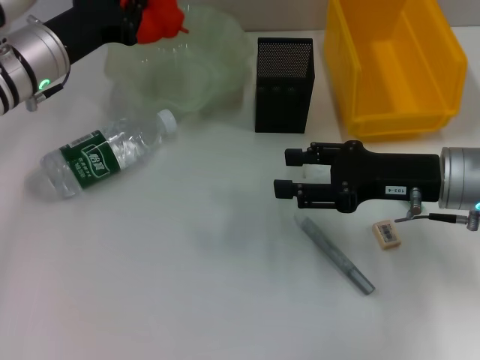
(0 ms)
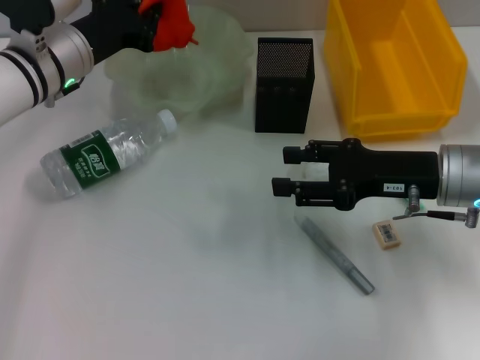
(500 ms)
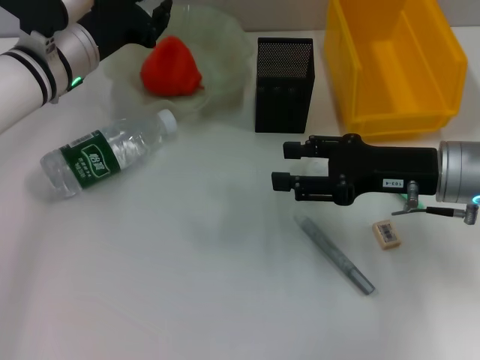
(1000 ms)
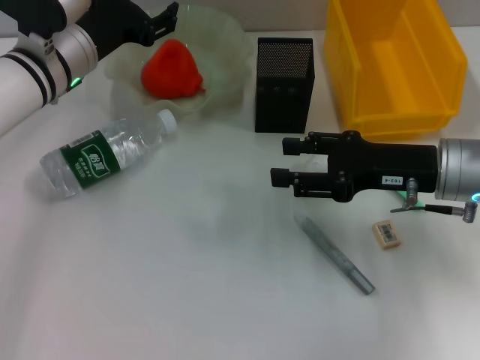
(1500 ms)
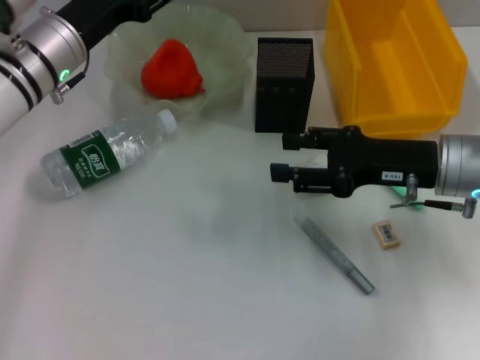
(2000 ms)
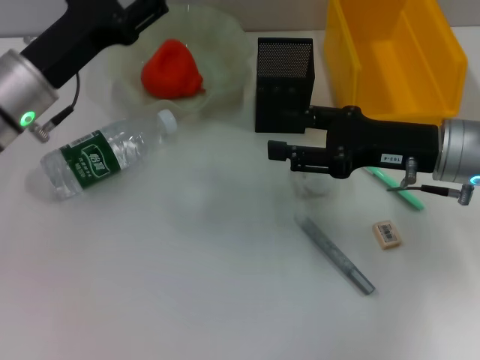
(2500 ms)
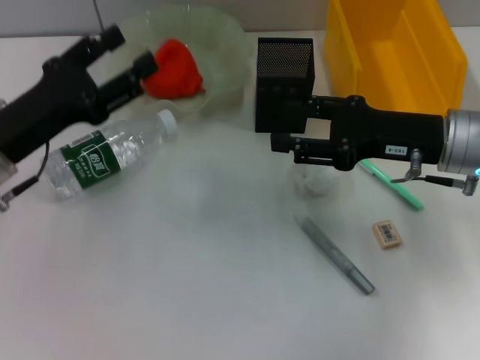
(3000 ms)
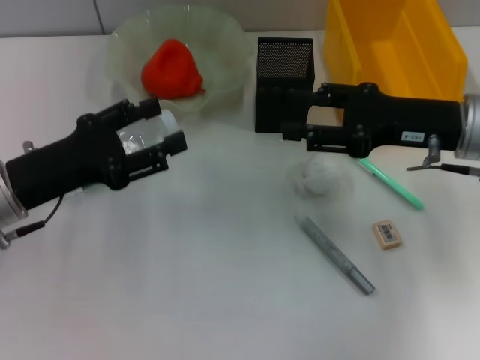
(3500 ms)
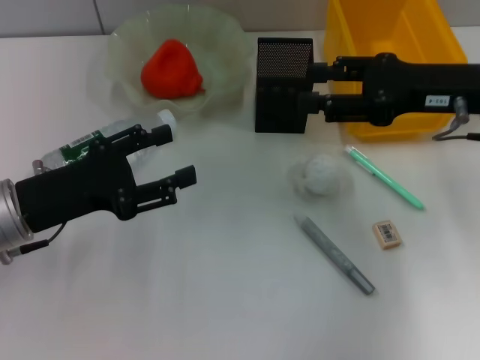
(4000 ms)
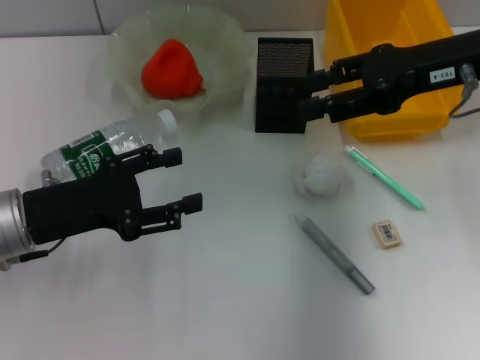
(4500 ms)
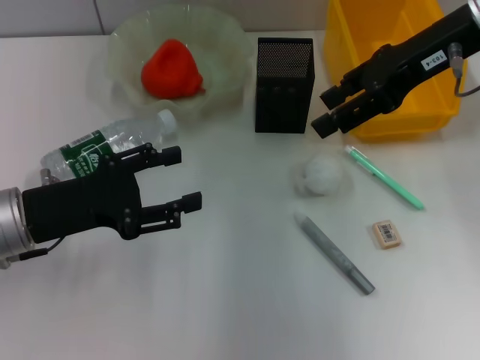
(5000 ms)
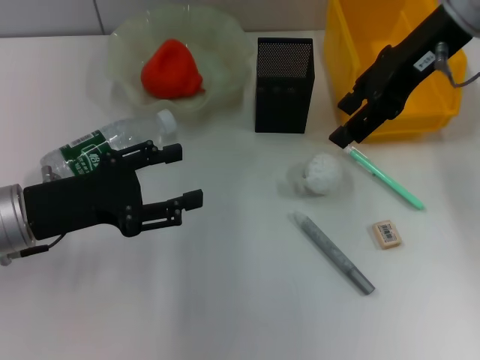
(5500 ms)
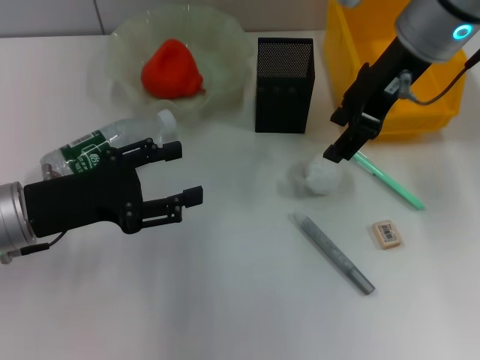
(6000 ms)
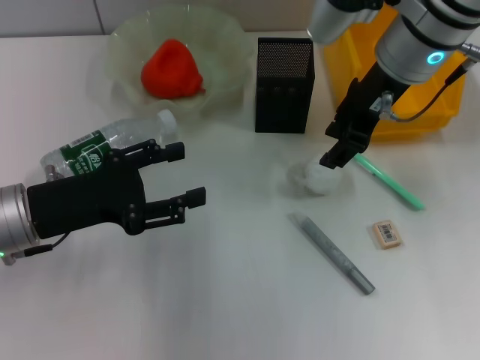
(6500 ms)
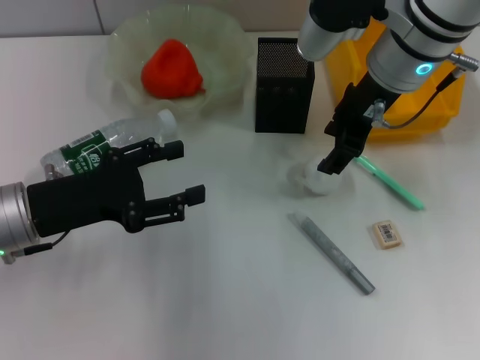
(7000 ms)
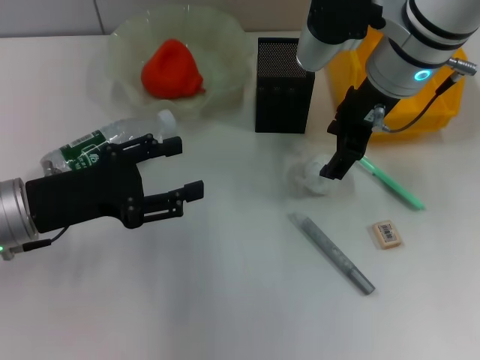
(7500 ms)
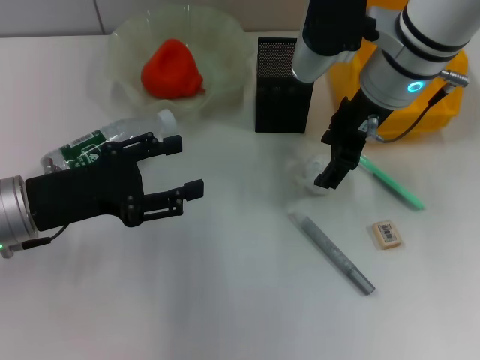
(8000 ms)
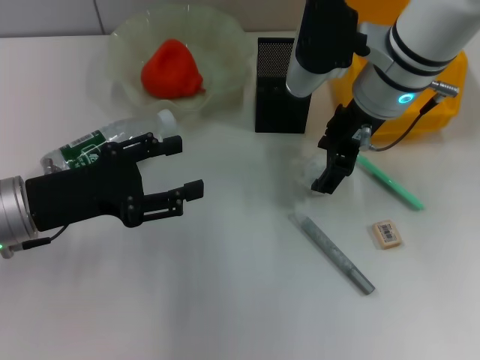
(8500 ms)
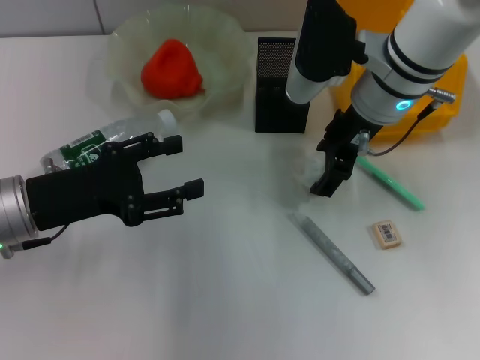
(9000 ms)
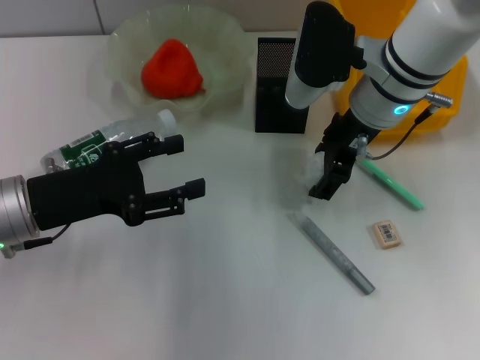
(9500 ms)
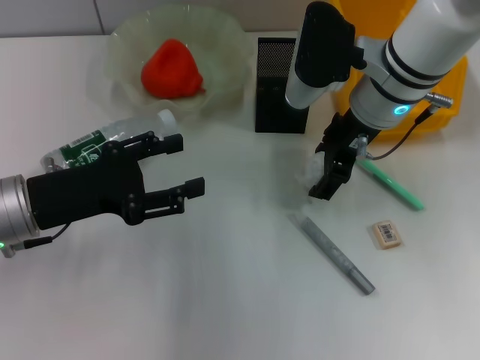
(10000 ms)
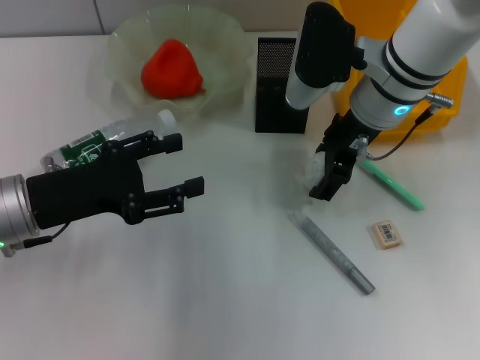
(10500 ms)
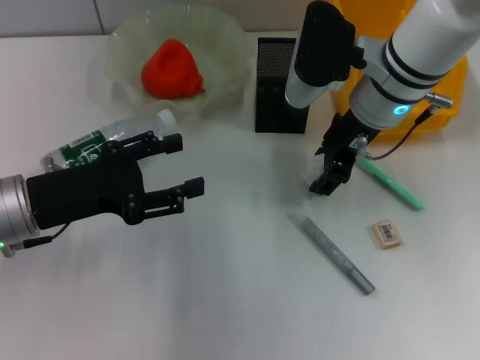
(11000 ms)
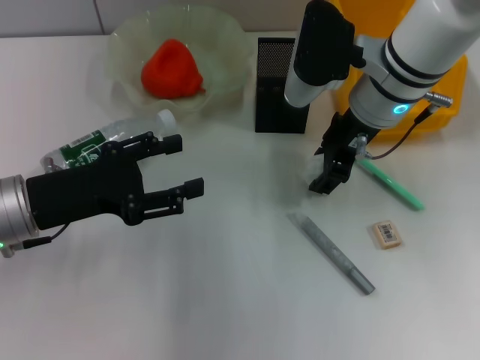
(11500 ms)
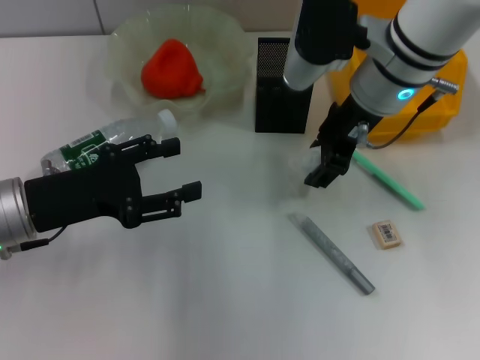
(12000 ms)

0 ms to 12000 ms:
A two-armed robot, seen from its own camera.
Step, 1500 ms to 11000 ms: Grab the paper ball with the right hand.
0 ms to 2000 ms: The left gripper opens.
2000 ms to 4000 ms: The left gripper moves backward, some 15 cm; the right gripper heads upward, covering approximately 5 cm.
4000 ms to 6000 ms: The right gripper shifts some 15 cm to the left, upward and forward.
6000 ms to 8000 ms: The right gripper is displaced downward by roughly 5 cm.
8000 ms to 12000 ms: There are only small adjustments of the grippers.

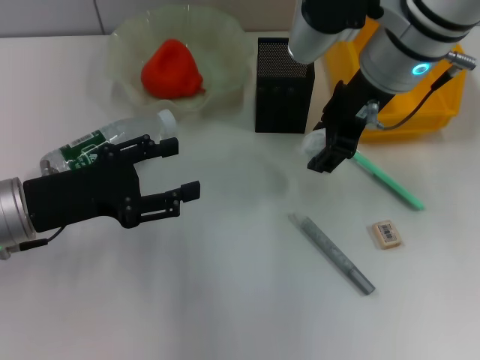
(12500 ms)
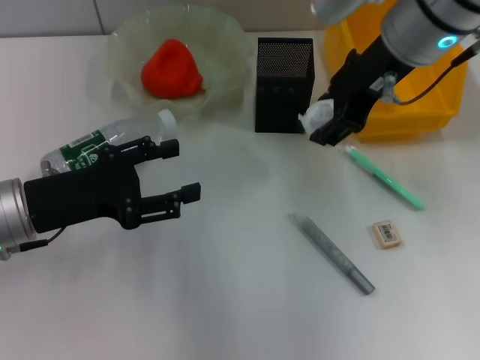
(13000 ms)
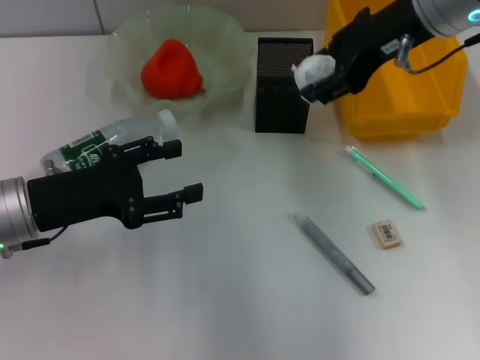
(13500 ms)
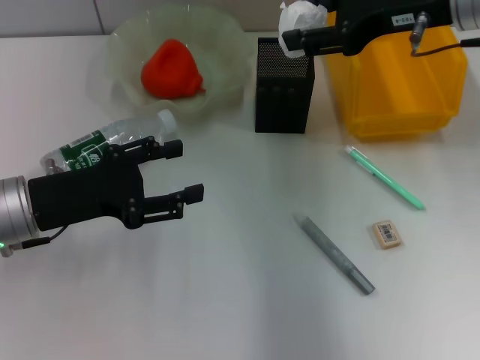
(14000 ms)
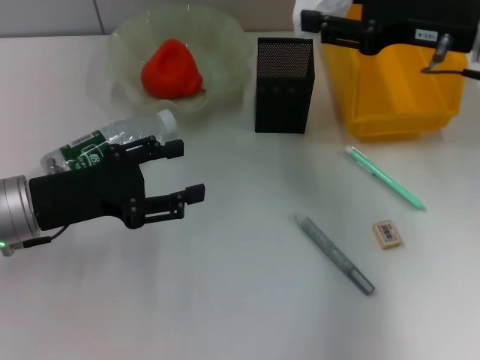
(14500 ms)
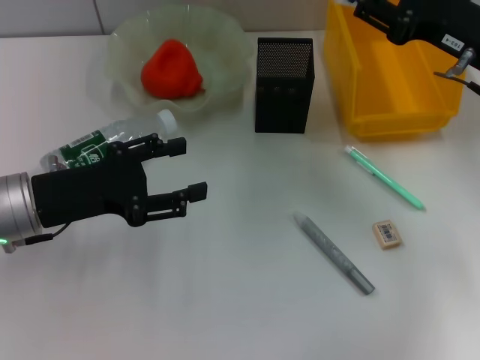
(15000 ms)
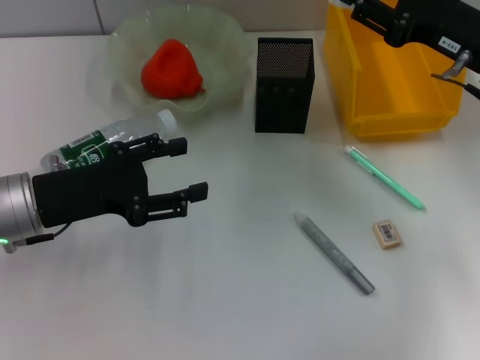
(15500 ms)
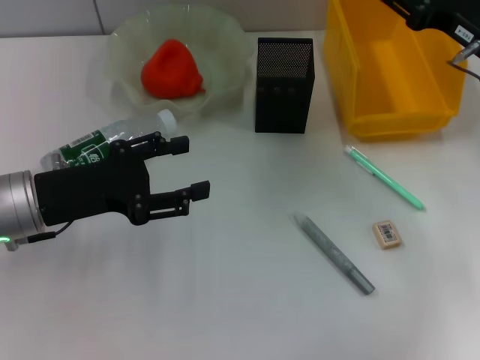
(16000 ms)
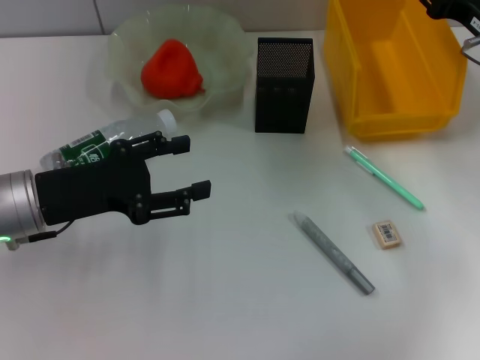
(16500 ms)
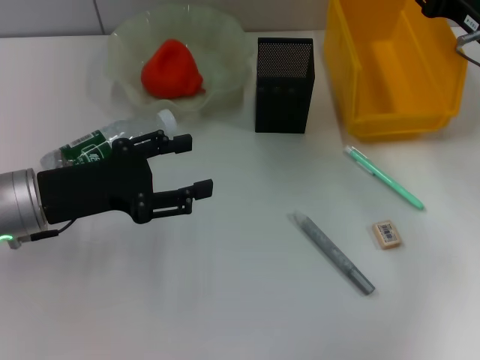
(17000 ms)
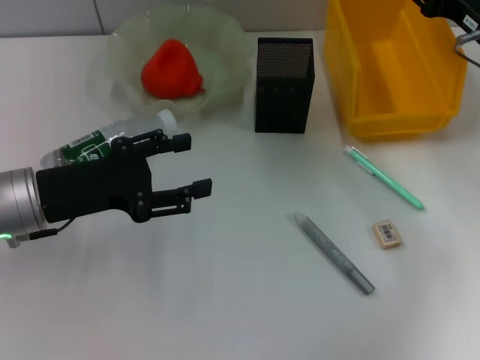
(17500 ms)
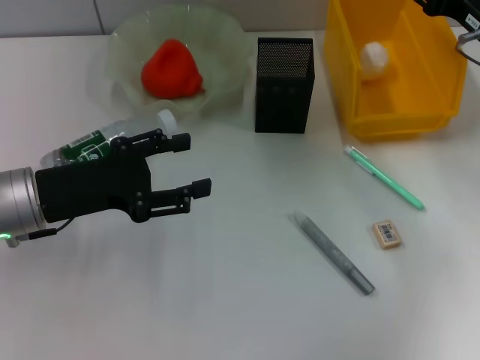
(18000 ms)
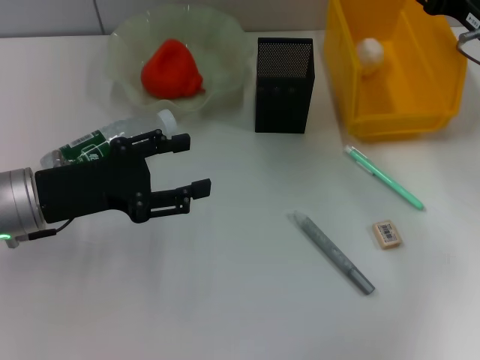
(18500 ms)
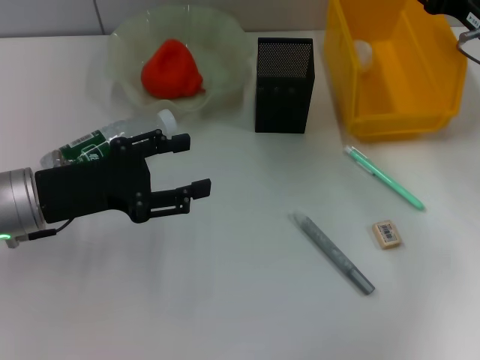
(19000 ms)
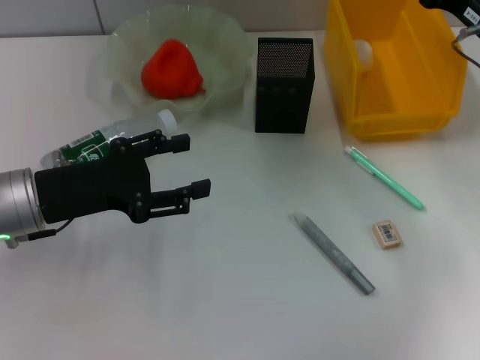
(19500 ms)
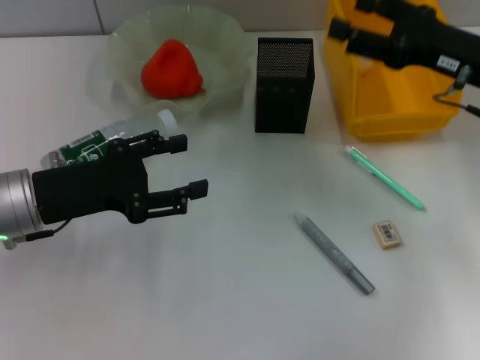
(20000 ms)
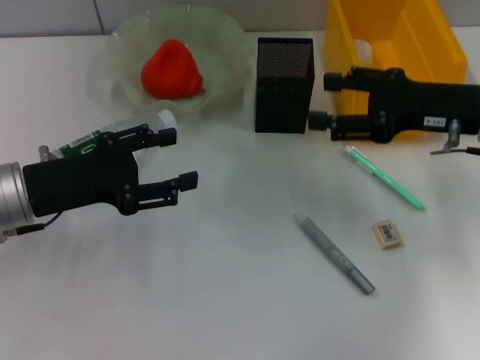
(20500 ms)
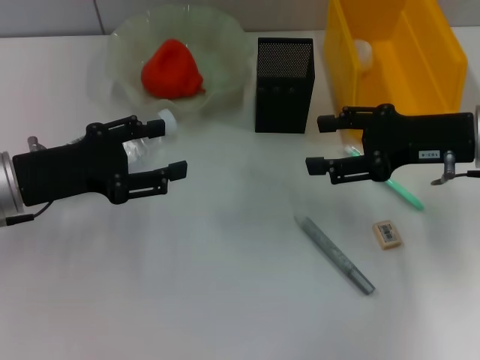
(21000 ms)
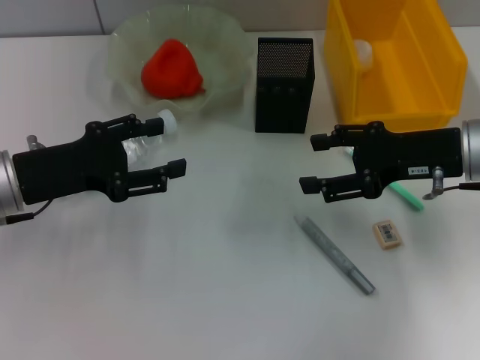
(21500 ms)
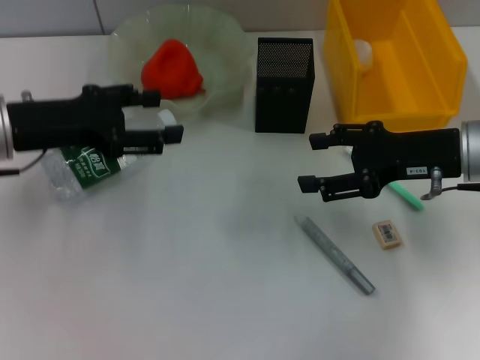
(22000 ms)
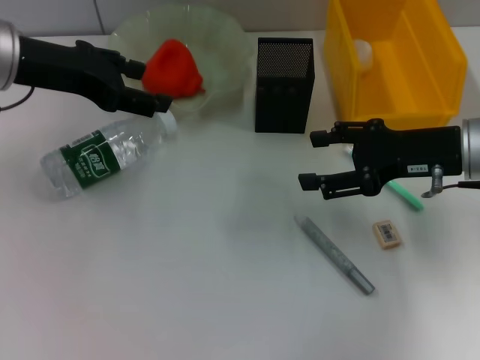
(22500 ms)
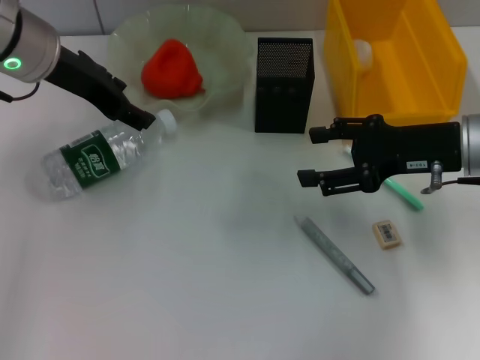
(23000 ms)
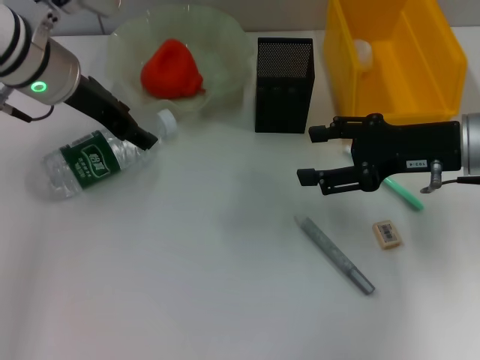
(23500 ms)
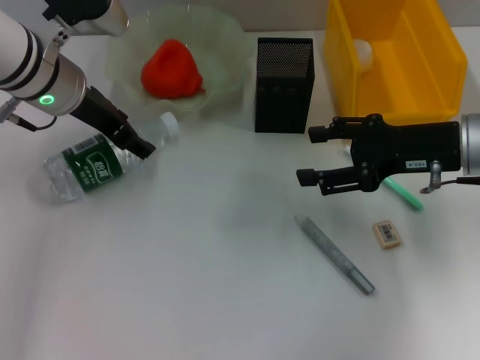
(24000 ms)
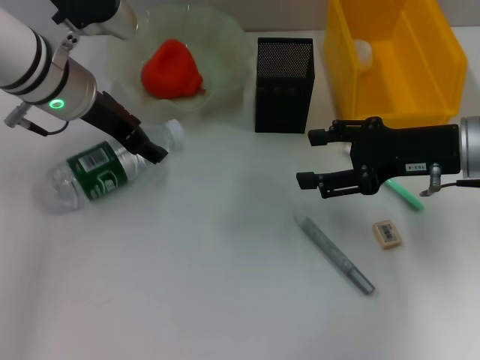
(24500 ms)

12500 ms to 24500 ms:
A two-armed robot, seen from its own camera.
Step, 12500 ms to 17500 ms: Place the paper ball into the trash can with the right hand.
12500 ms to 14500 ms: The right gripper shifts approximately 10 cm to the right.
14500 ms to 16500 ms: The right gripper travels downward by some 5 cm.
16500 ms to 18500 ms: The two grippers keep their place.
18500 ms to 20500 ms: The right gripper moves about 5 cm.
20500 ms to 22500 ms: The left gripper is displaced upward and forward by roughly 15 cm.
22500 ms to 24500 ms: The left gripper goes about 10 cm downward and to the right.

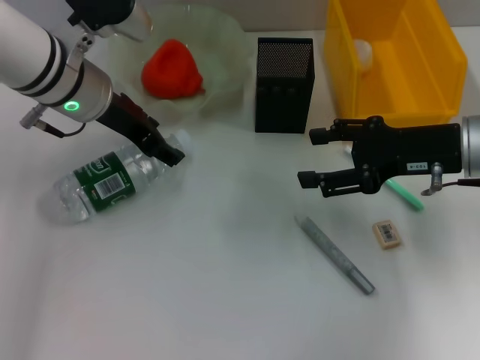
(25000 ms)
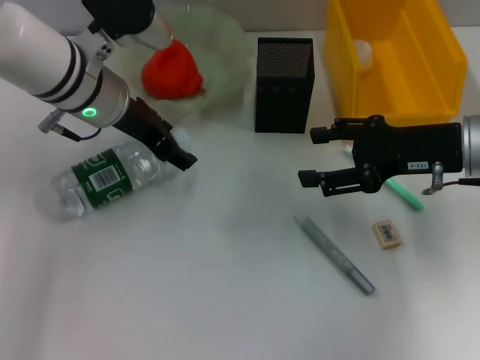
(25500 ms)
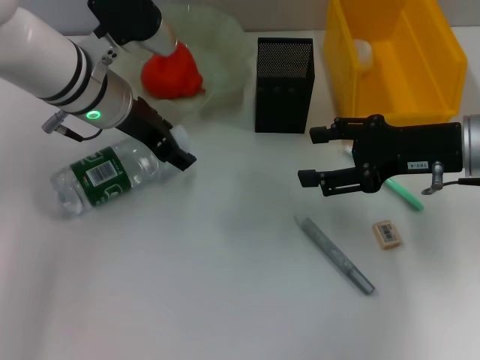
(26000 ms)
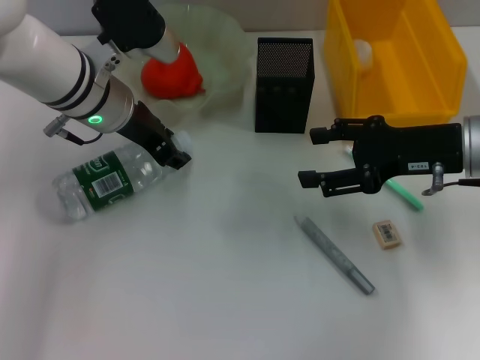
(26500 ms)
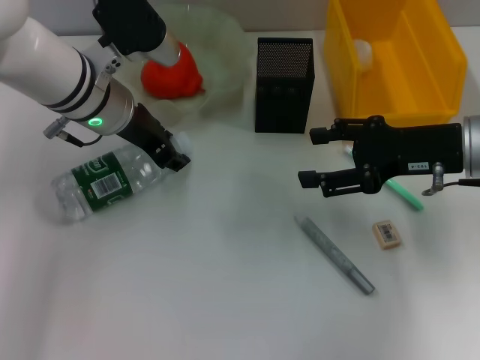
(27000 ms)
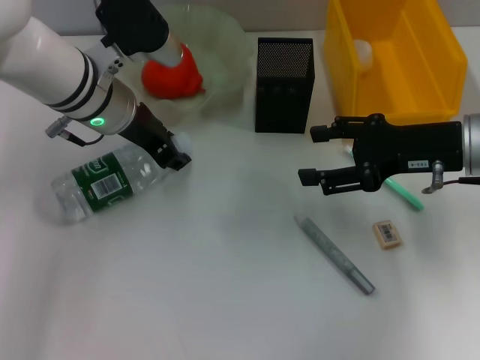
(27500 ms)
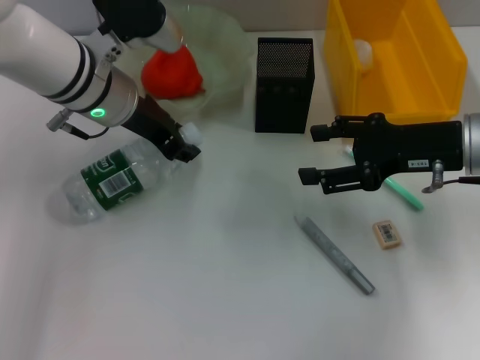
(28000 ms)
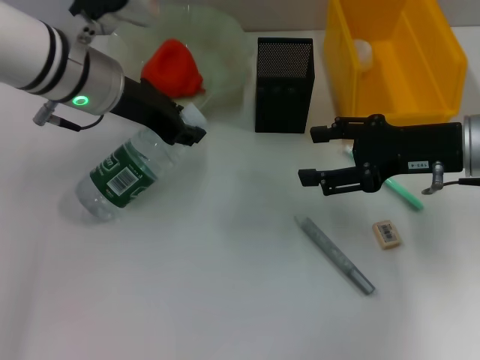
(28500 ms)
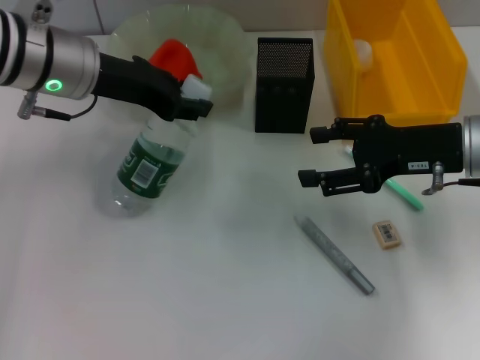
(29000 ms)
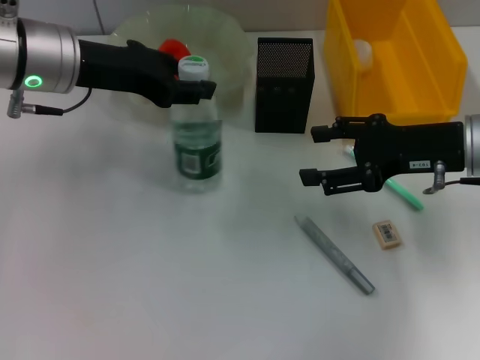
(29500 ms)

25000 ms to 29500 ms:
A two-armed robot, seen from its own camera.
Step, 25000 ms to 27000 ms: Grab the water bottle with the left hand.
25000 ms to 27000 ms: The left gripper closes up.
27000 ms to 29500 ms: The left gripper is displaced upward by about 5 cm.
